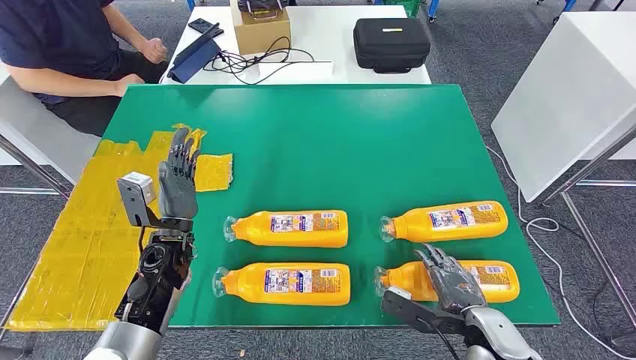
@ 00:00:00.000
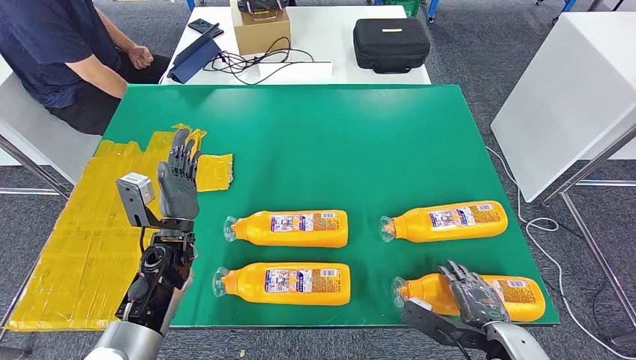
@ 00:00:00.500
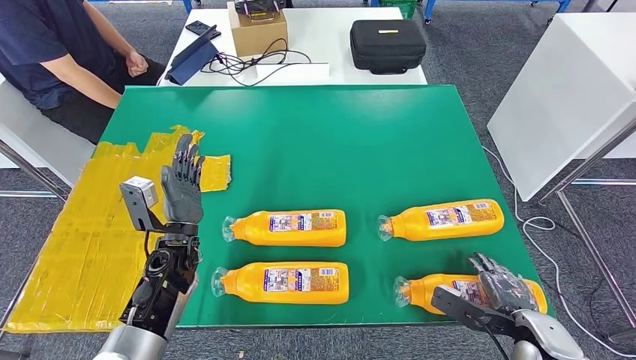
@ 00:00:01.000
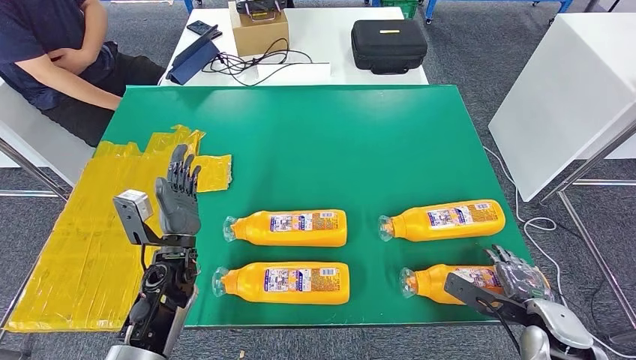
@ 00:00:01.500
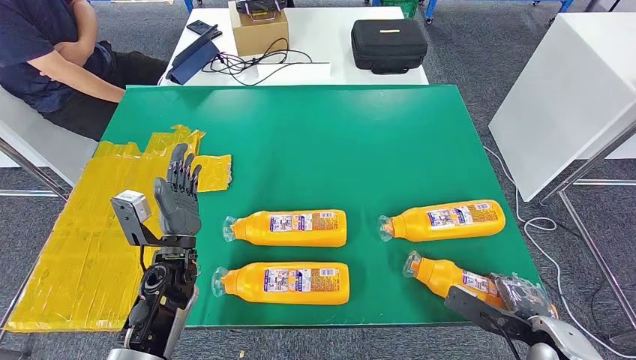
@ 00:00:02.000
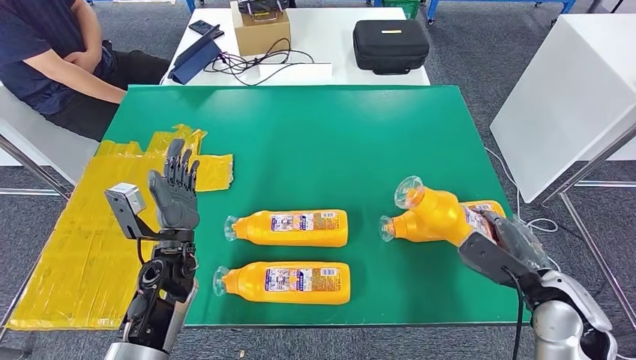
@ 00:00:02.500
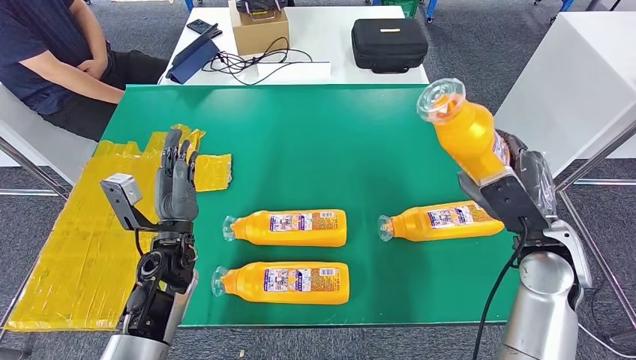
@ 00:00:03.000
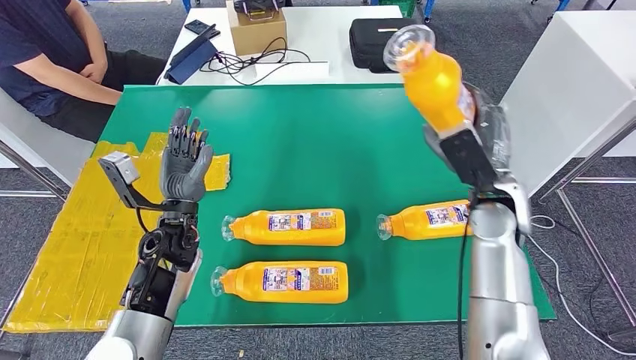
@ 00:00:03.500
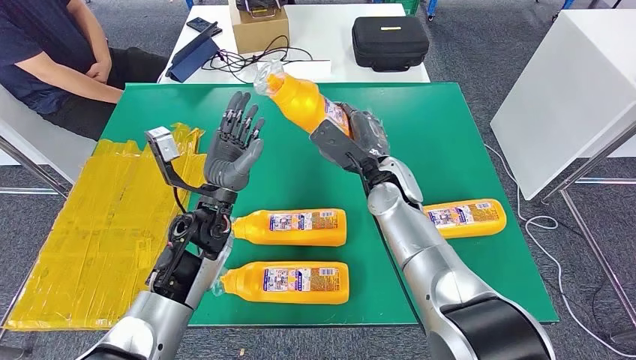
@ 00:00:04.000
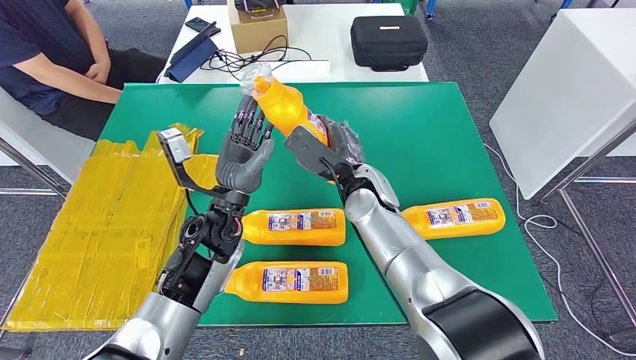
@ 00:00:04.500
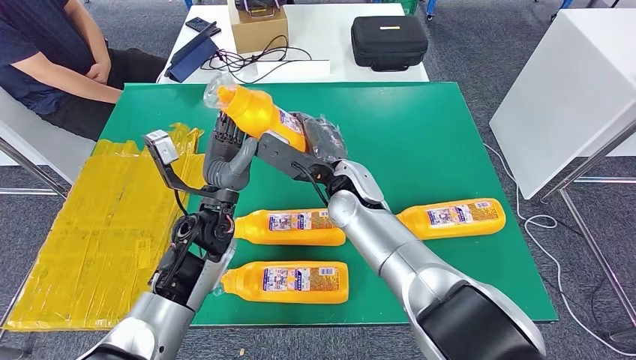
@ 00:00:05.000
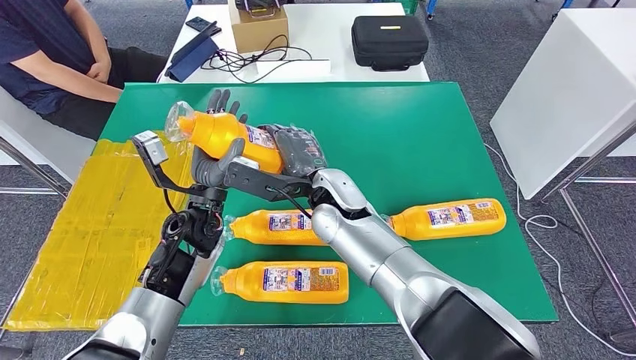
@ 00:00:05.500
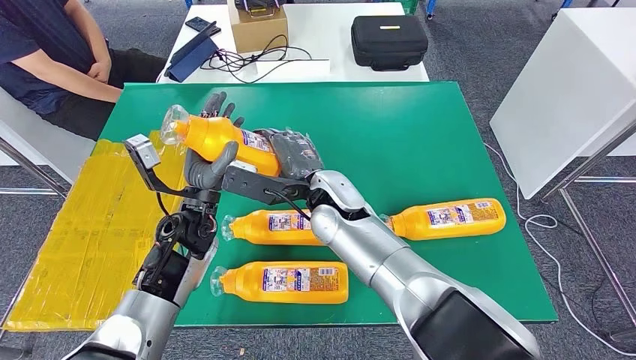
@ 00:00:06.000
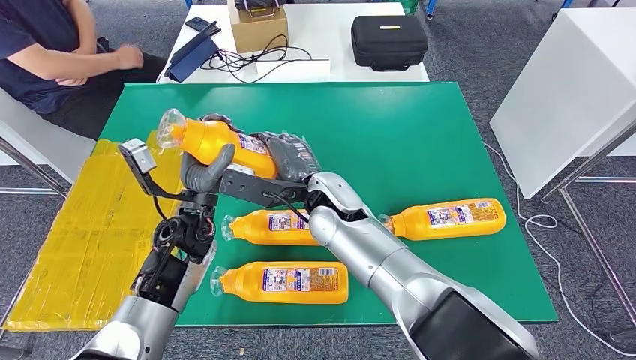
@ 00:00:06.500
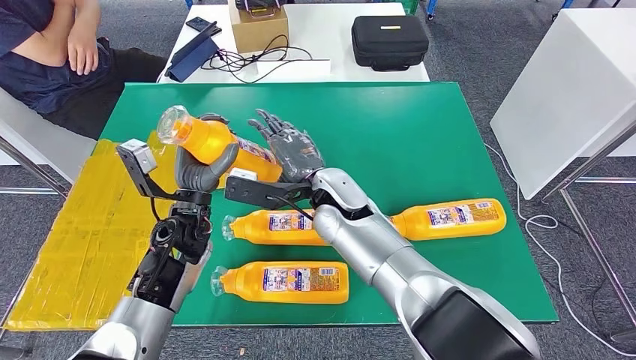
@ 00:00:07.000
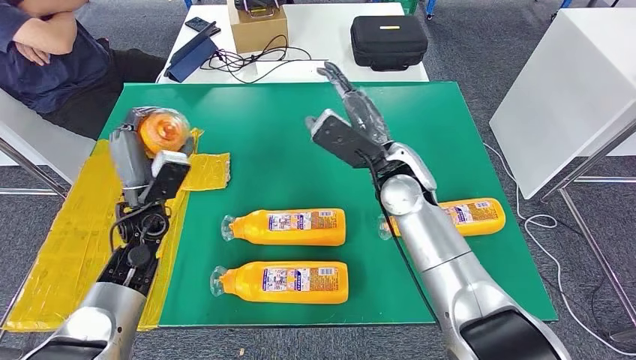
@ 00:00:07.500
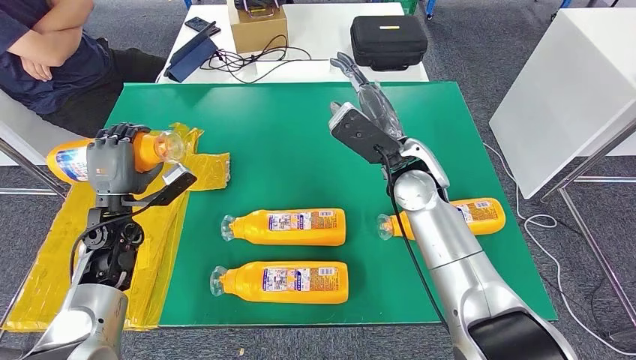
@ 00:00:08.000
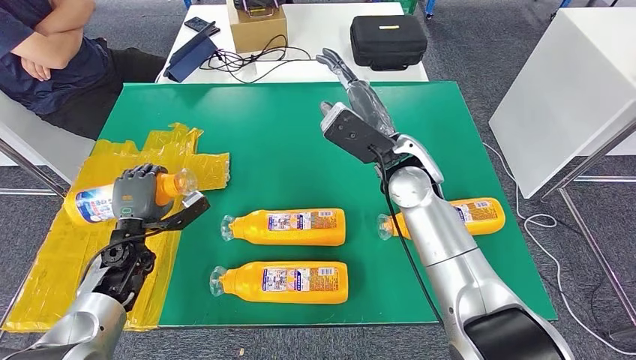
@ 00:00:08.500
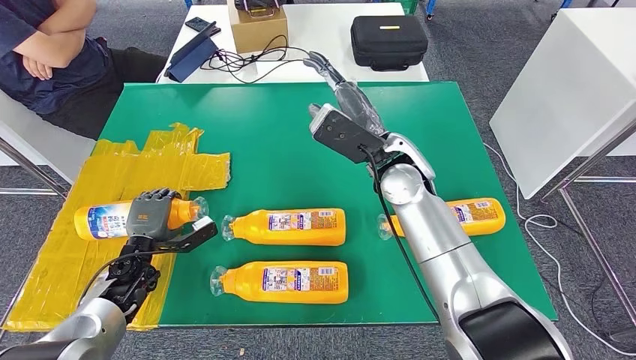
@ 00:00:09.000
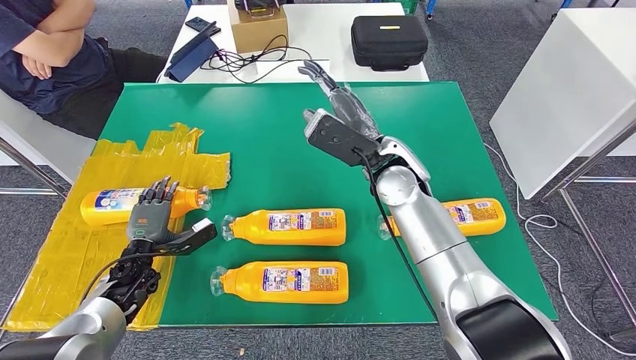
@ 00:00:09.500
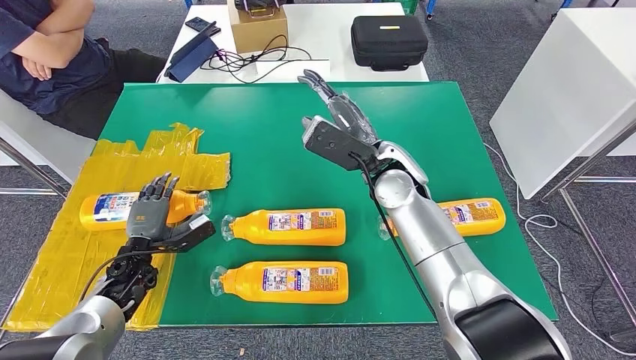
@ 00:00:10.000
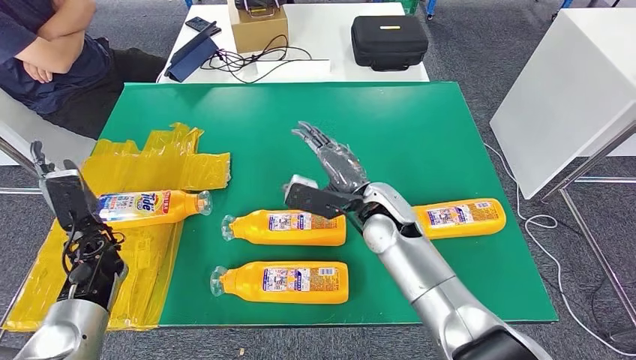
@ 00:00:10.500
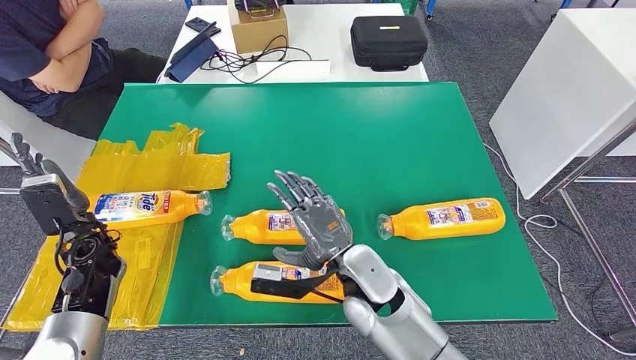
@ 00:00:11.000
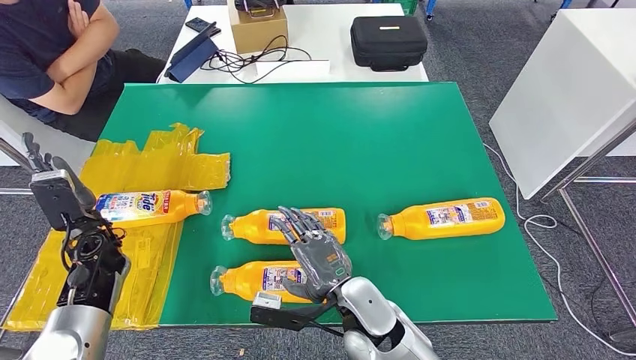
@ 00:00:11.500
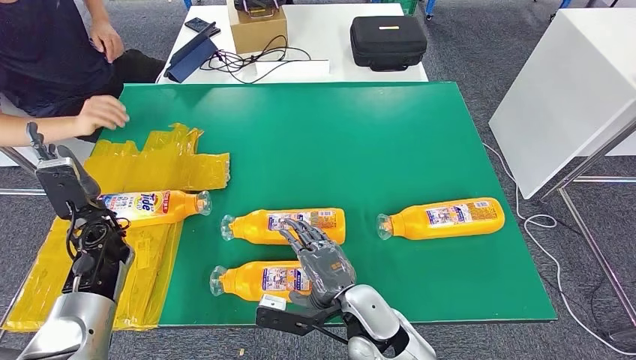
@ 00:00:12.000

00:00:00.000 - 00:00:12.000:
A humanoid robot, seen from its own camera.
Step, 00:00:00.000 - 00:00:03.000: Take the fast-moving consumer goods bottle from the table.
Step, 00:00:04.000 - 00:00:10.000: Flip the fast-moving consumer goods bottle to the front side.
00:00:08.000 - 00:00:10.000: The left hand goes some 10 cm downward.

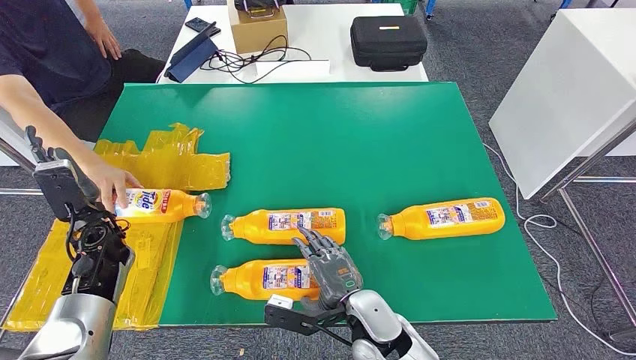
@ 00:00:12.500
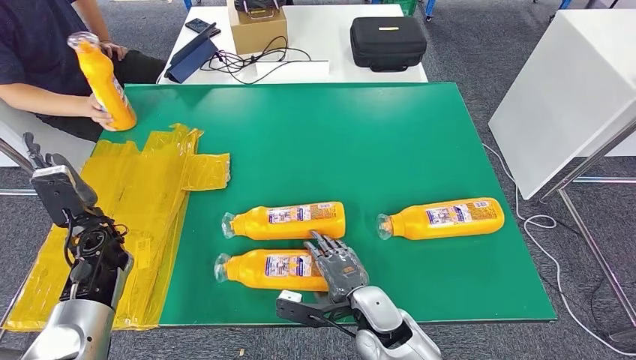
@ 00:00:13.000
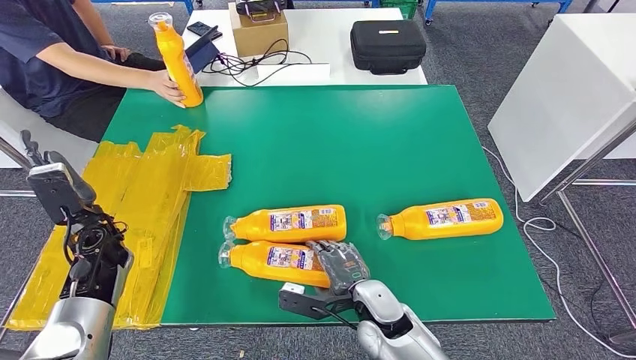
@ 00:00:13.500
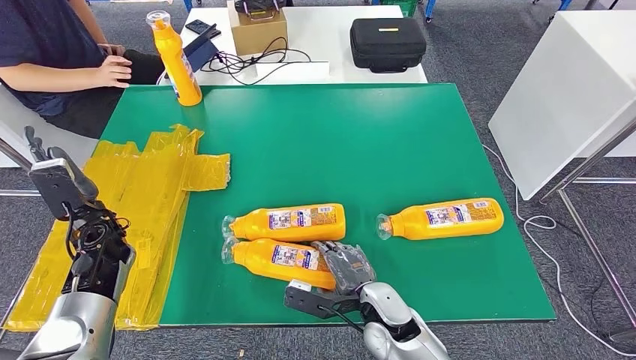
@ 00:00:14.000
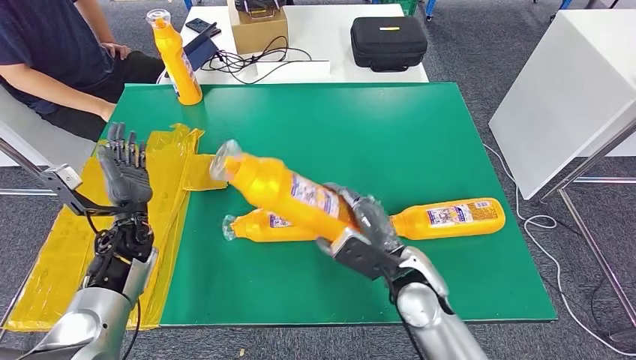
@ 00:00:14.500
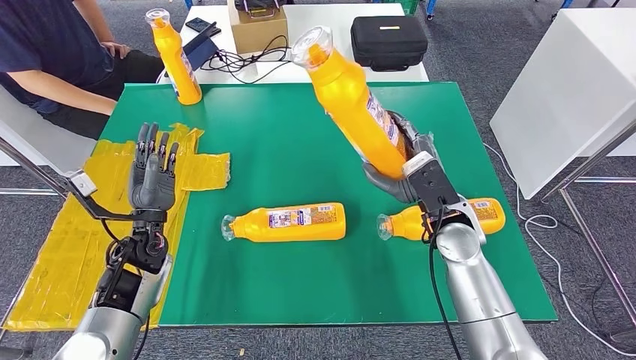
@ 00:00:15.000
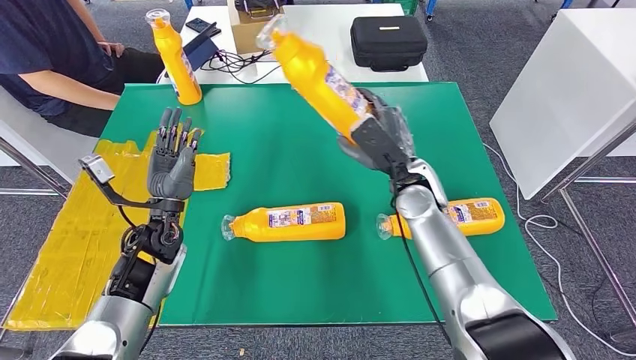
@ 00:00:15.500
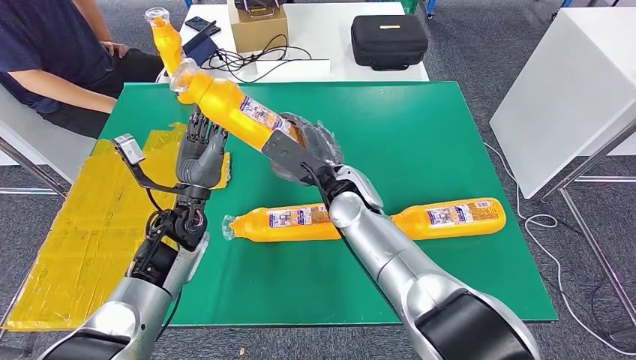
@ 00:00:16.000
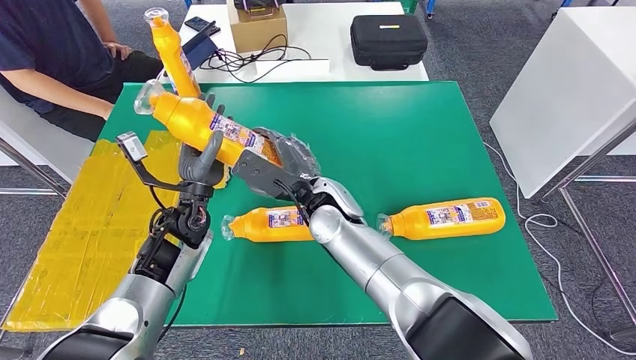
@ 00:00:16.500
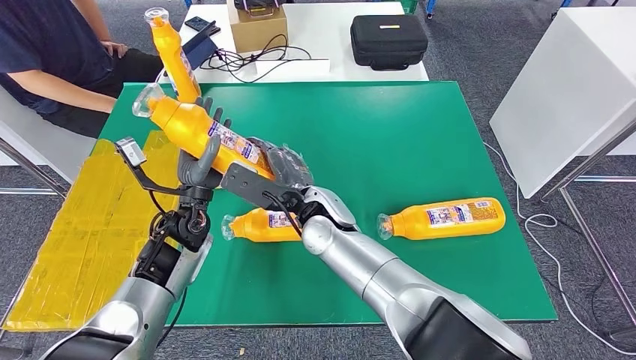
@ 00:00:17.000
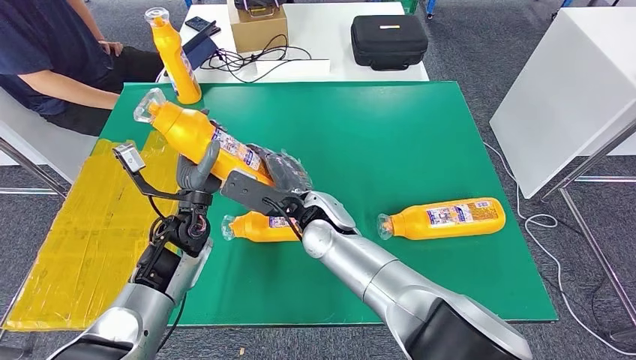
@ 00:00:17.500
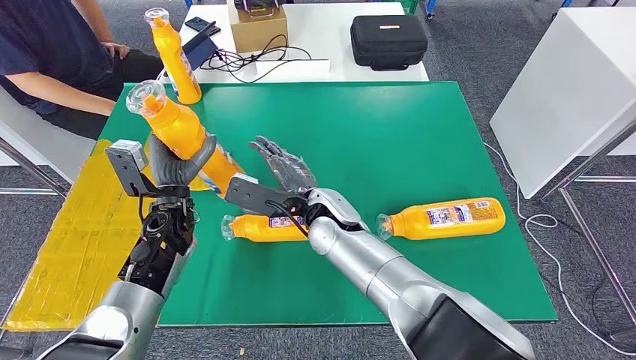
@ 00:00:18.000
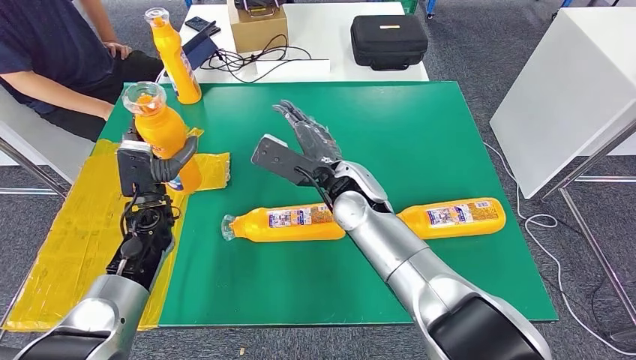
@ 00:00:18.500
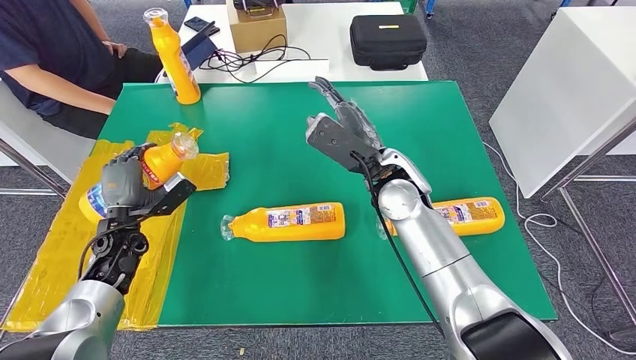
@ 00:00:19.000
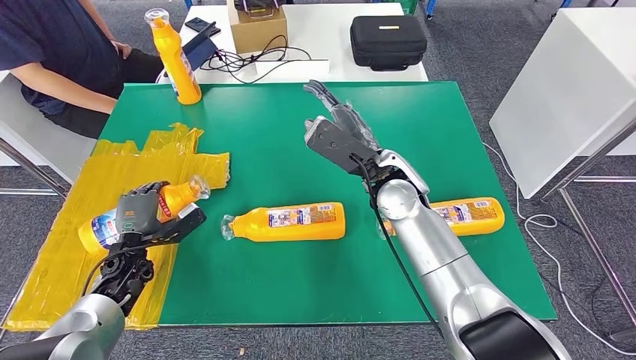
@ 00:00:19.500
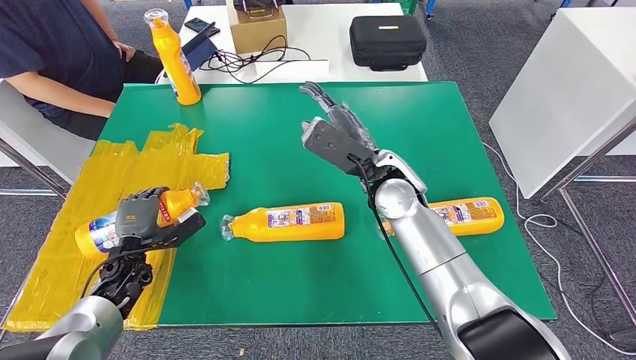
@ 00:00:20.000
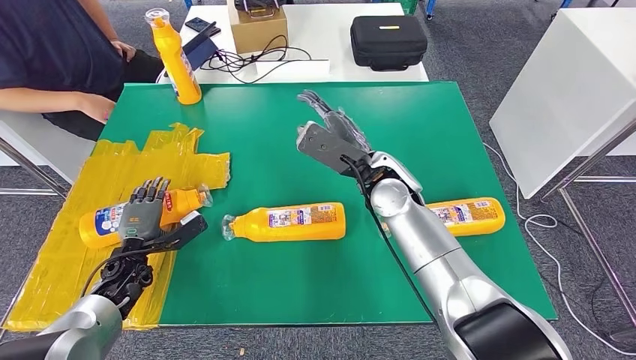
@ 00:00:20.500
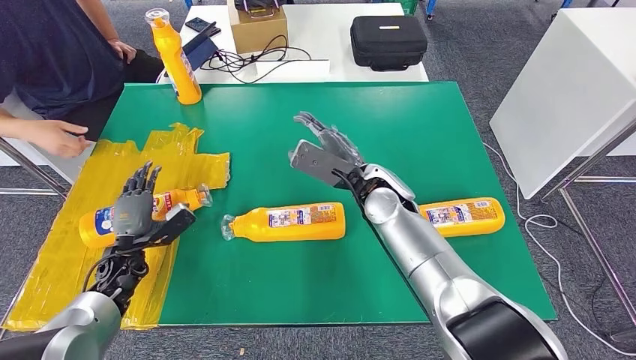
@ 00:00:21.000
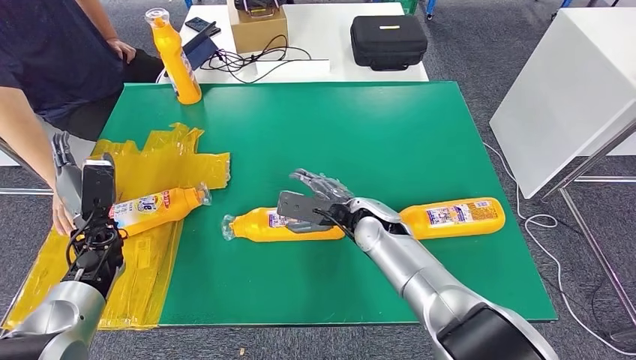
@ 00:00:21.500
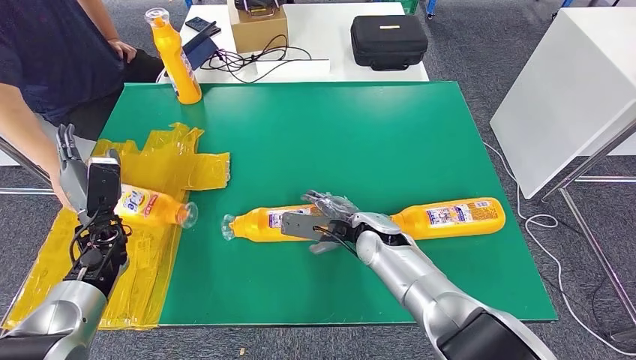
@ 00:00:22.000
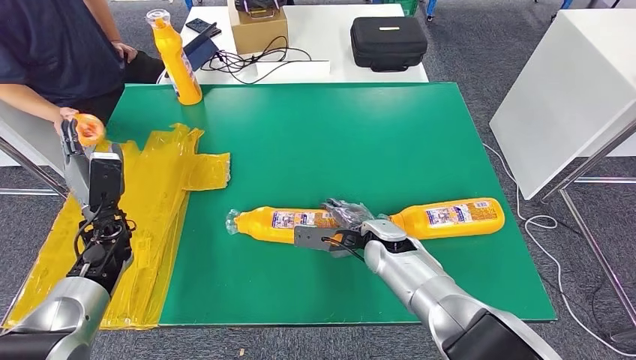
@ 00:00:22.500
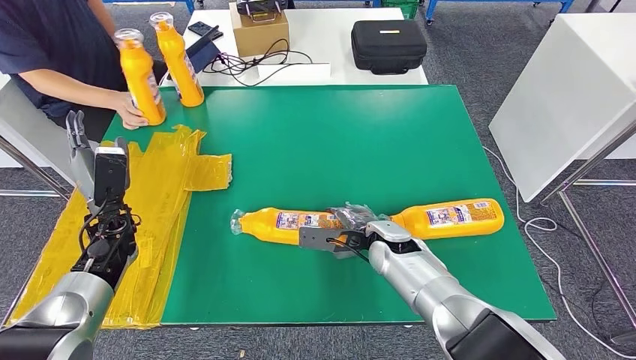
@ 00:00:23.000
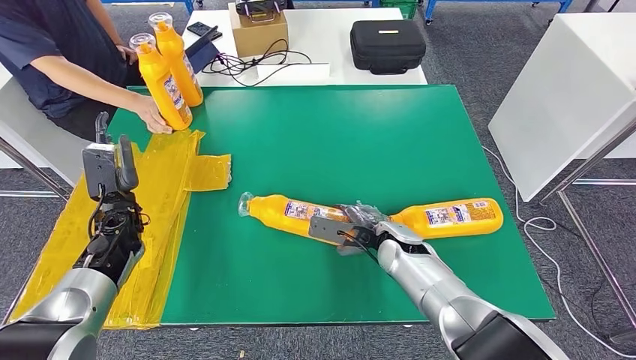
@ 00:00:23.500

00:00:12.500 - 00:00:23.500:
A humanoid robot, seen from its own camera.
Step, 00:00:13.500 - 00:00:15.000: Pick up the fast-moving consumer goods bottle from the table.
Step, 00:00:17.000 - 00:00:20.000: Flip the fast-moving consumer goods bottle to the front side.
00:00:16.000 - 00:00:18.000: The right hand moves approximately 5 cm.
